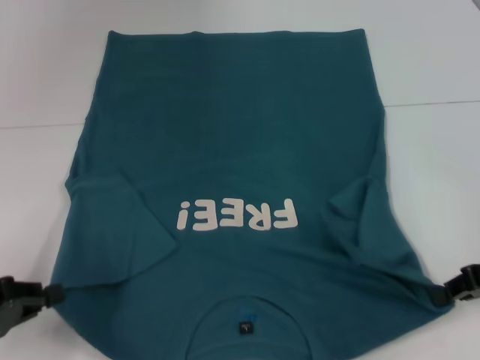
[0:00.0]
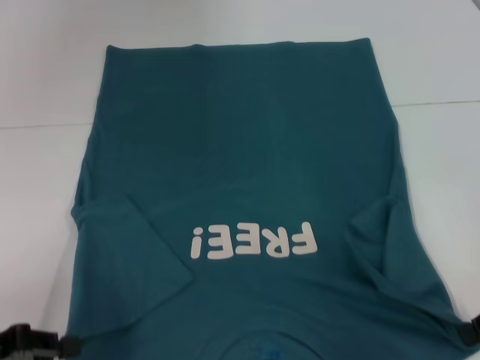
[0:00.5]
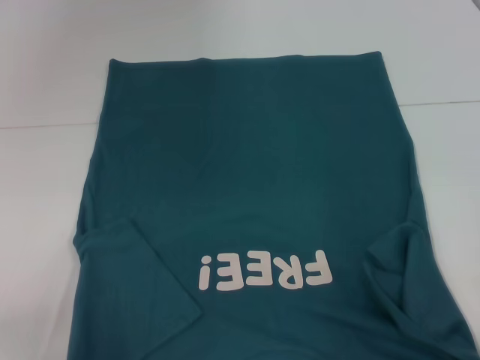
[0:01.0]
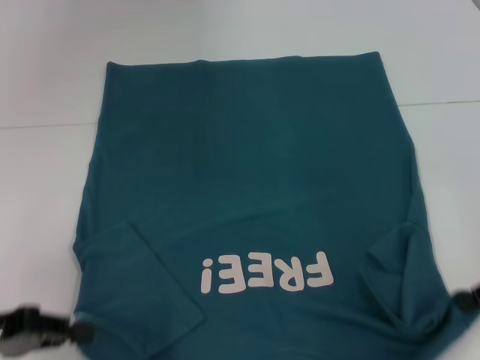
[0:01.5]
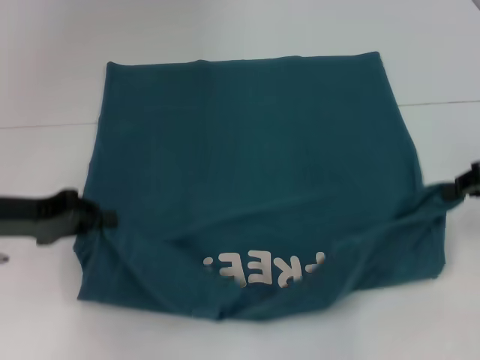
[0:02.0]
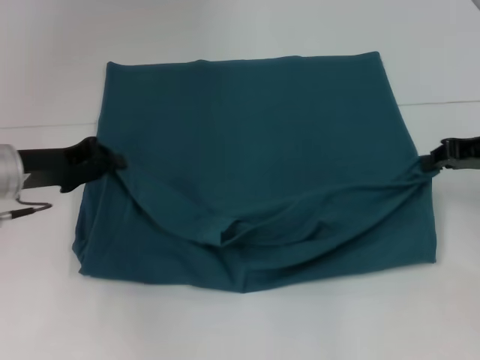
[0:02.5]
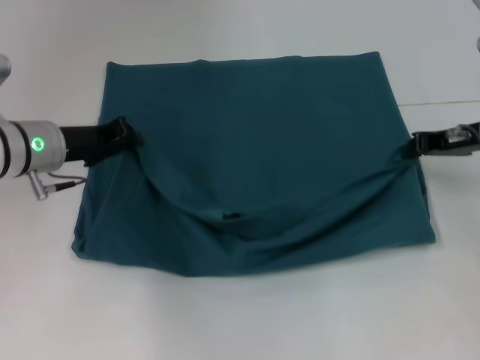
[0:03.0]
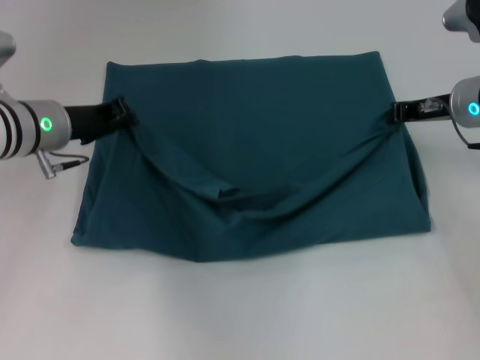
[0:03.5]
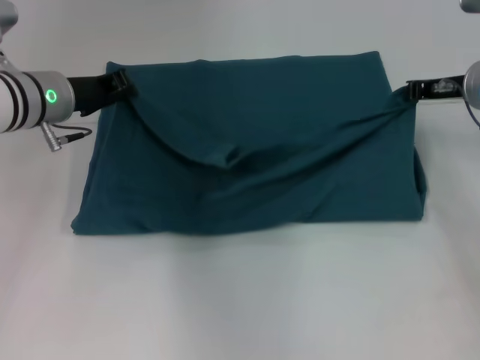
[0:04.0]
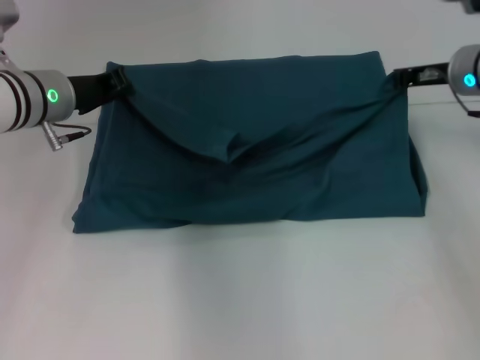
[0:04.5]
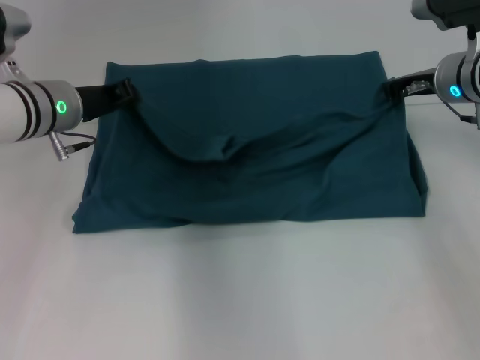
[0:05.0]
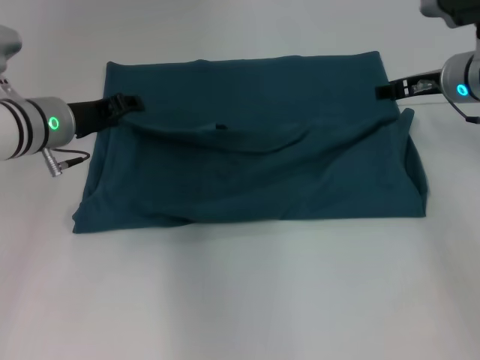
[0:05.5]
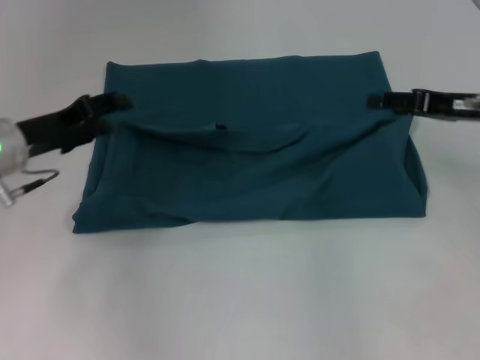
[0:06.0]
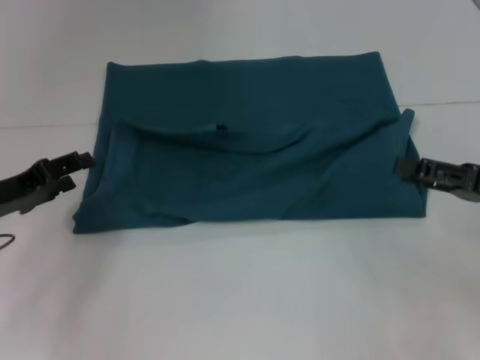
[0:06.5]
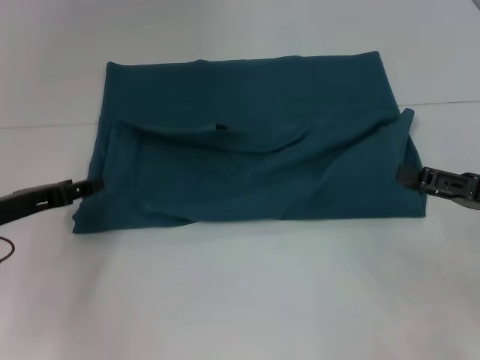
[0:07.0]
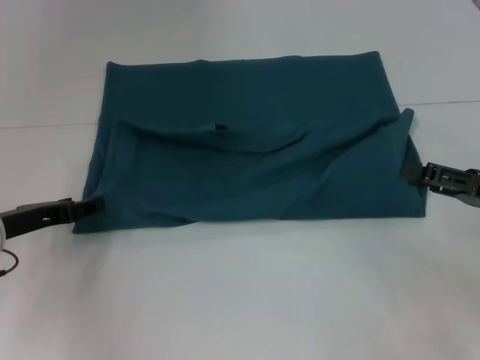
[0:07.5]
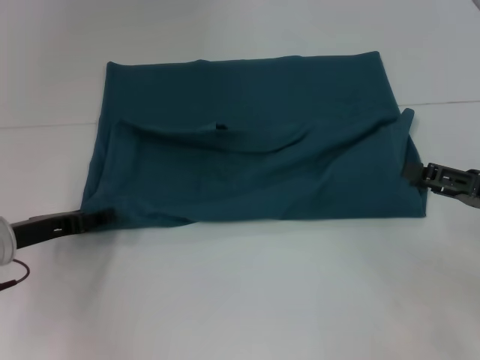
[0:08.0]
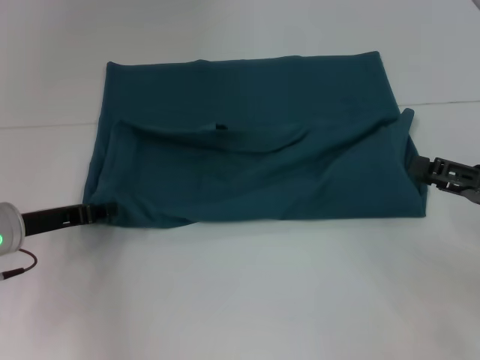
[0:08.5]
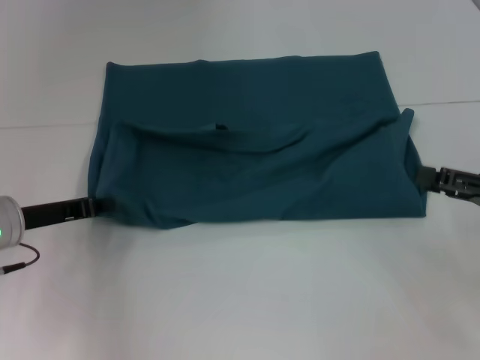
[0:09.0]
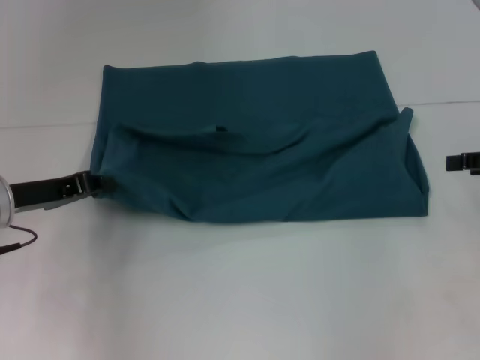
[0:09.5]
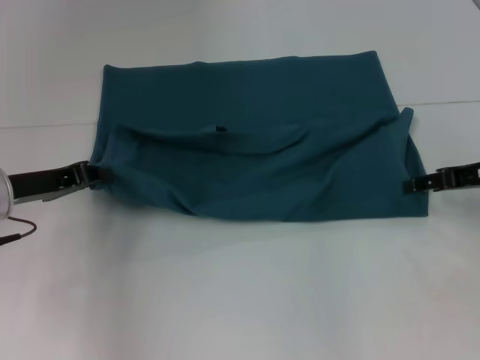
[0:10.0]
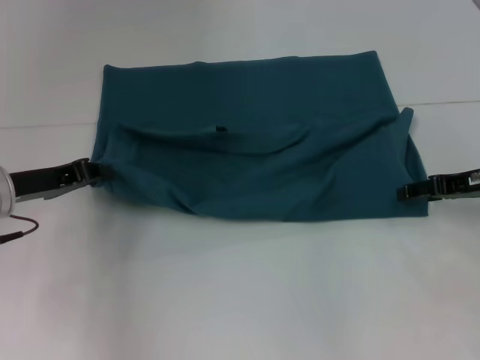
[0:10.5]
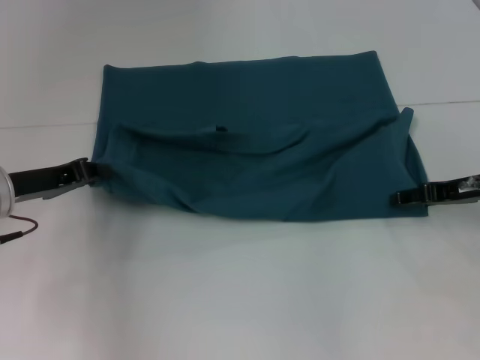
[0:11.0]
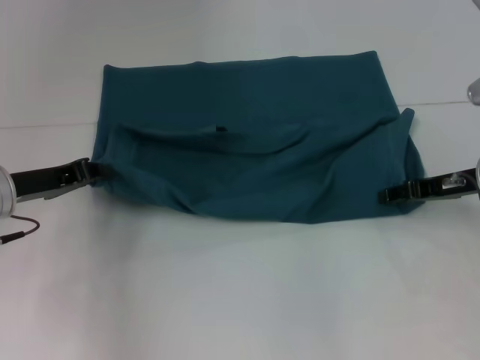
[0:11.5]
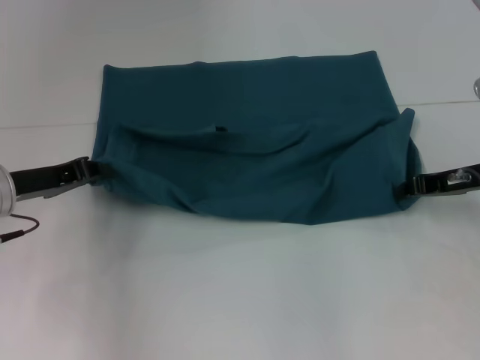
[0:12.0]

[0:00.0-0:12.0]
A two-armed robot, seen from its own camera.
Step, 0:00.5 to 0:05.5: Fold the clothes to the left.
Step, 0:00.5 to 0:05.5: Fold the clothes to the right.
0:00.0 to 0:02.0: The right gripper shifts roughly 5 cm upward; the left gripper is displaced forward, upward and to the right by about 15 cm.
0:02.0 to 0:04.0: The right gripper travels forward and to the left by approximately 10 cm. The left gripper moves forward and to the right, about 15 cm.
0:04.0 to 0:06.0: The two grippers go approximately 5 cm backward. The left gripper opens its fingers; the right gripper opens.
0:06.0 to 0:08.0: The right gripper moves backward and downward, about 10 cm; the left gripper heads downward and backward, covering approximately 10 cm.
0:08.0 to 0:10.0: The right gripper moves forward, approximately 10 cm. The left gripper ends up about 5 cm from where it was, and closes.
0:10.0 to 0:12.0: The right gripper closes up.

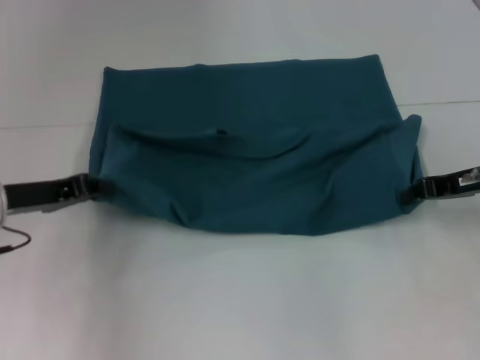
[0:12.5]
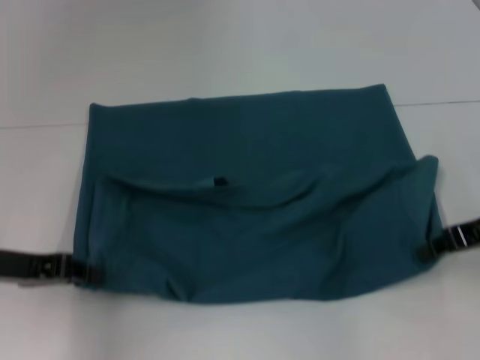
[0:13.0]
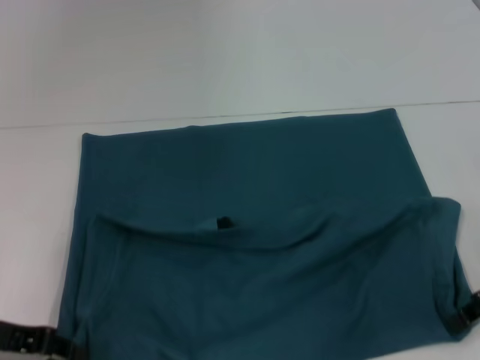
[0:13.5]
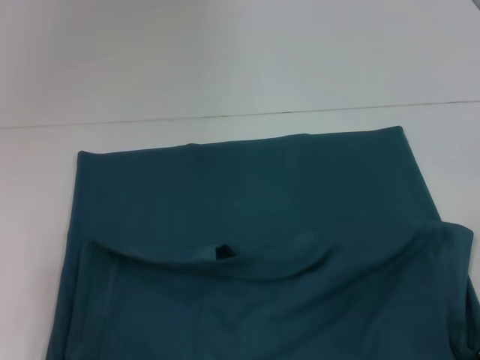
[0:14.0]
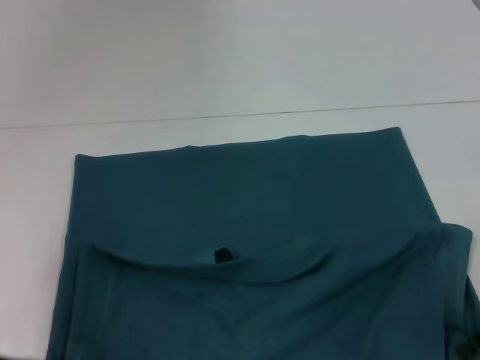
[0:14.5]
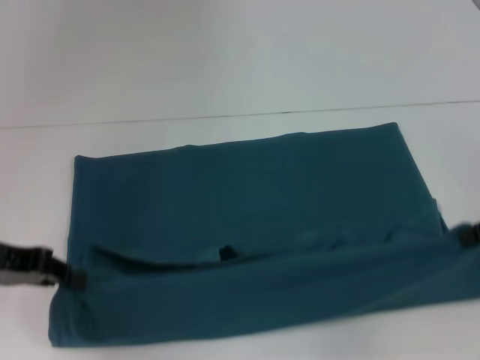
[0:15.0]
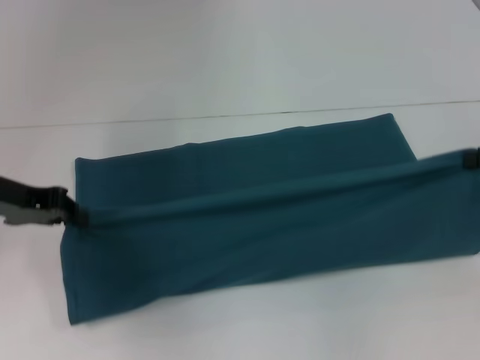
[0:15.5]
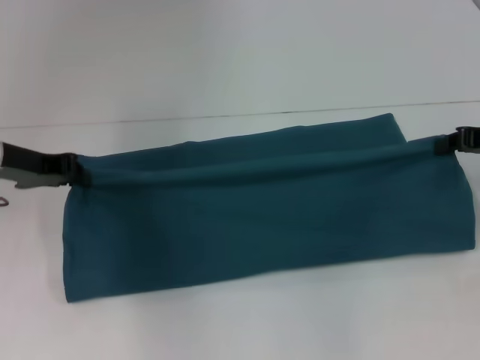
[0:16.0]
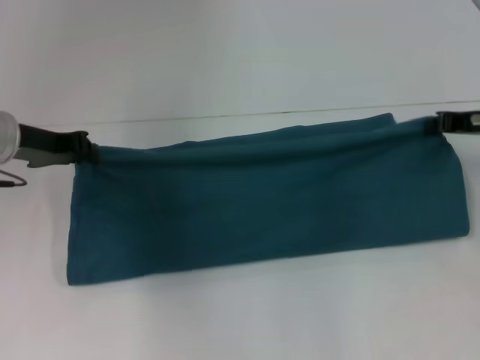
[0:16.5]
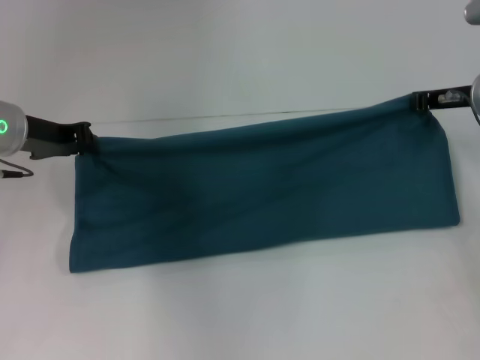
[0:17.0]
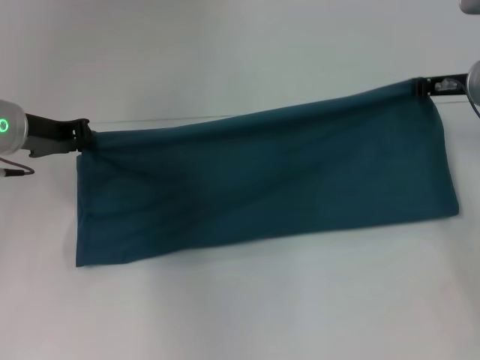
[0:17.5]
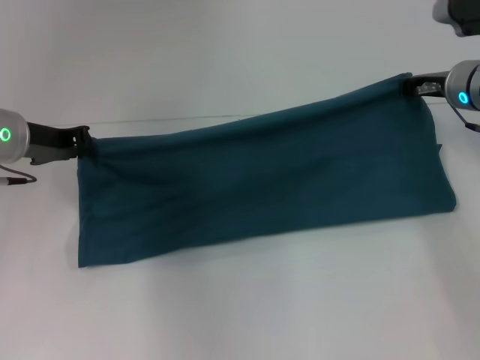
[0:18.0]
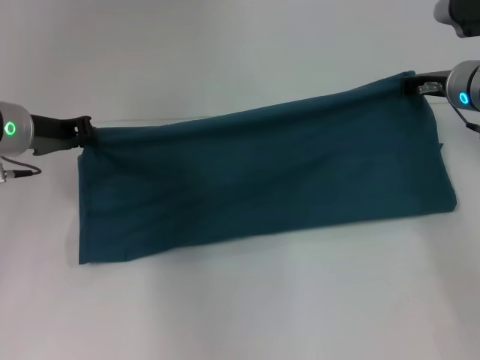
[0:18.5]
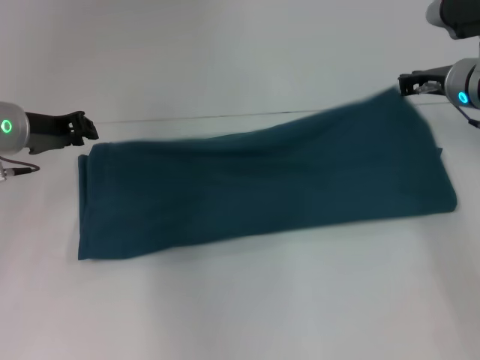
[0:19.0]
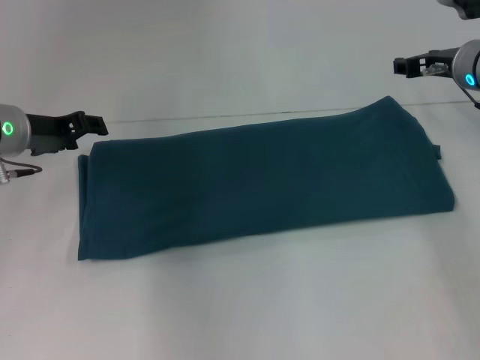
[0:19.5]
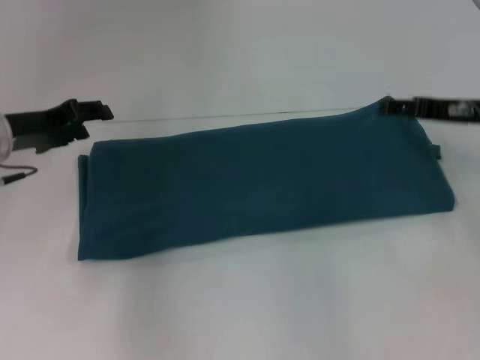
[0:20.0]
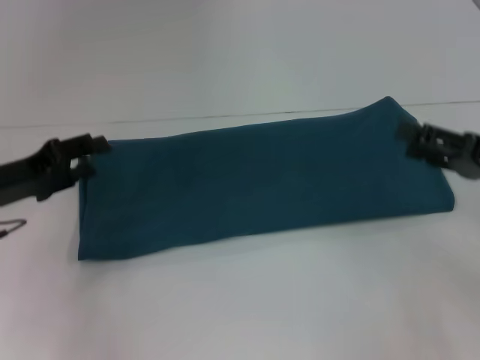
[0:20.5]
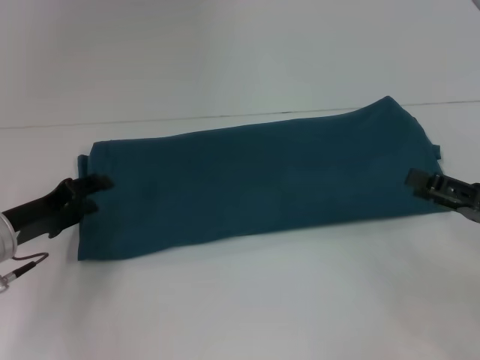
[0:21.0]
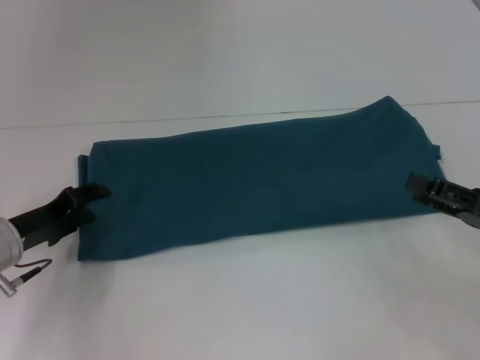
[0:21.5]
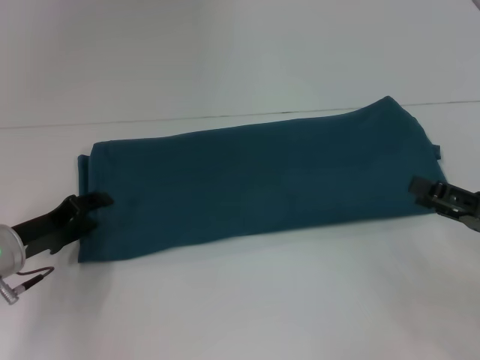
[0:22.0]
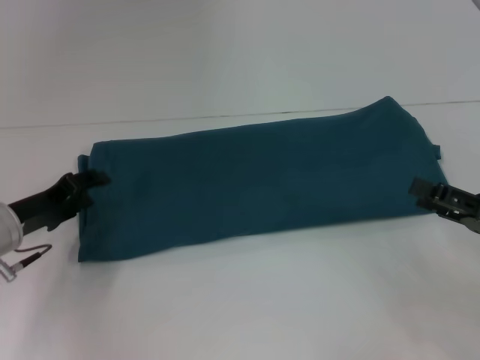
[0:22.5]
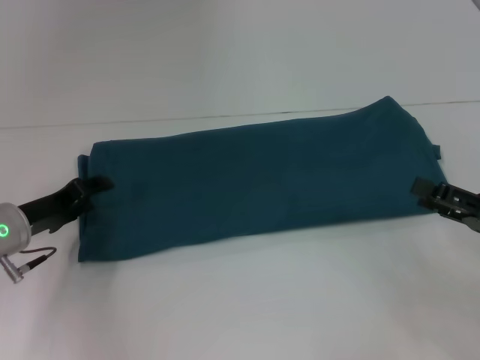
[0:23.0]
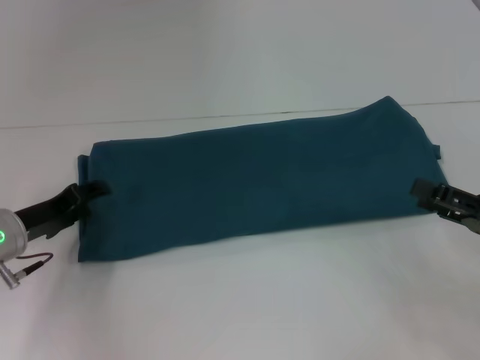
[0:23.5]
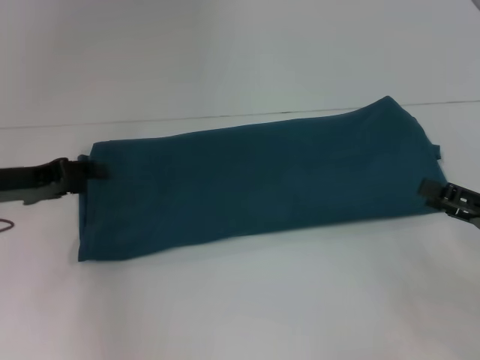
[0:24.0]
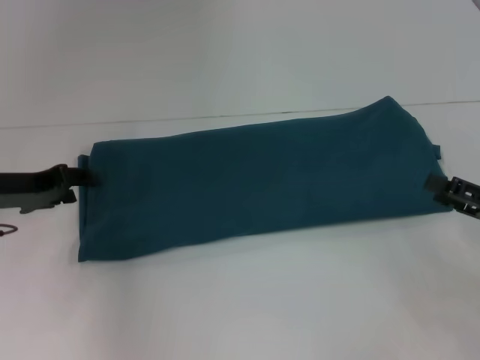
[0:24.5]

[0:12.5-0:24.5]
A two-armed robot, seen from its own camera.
Step, 0:14.5 to 0:19.0: Fold the clothes to the right.
0:12.5 to 0:14.5: Both grippers move backward, about 10 cm.
0:14.5 to 0:16.5: Both grippers move forward, approximately 15 cm.
0:16.5 to 0:18.5: The right gripper travels to the left and forward by roughly 10 cm.
0:18.5 to 0:20.5: The left gripper heads backward, covering roughly 10 cm, and opens its fingers. The right gripper heads backward and to the right, covering approximately 15 cm, and opens up.
0:20.5 to 0:22.5: The left gripper shifts about 5 cm downward; the right gripper shifts by approximately 5 cm.
0:22.5 to 0:24.5: The left gripper moves upward, roughly 5 cm.

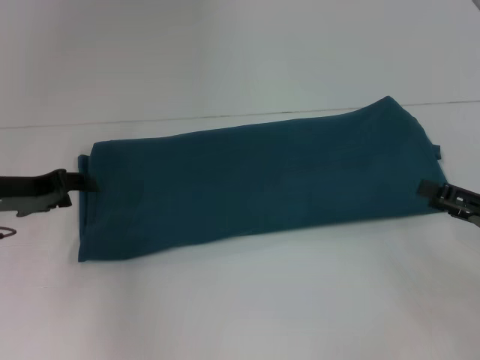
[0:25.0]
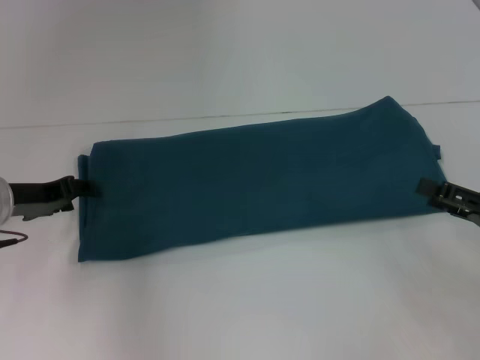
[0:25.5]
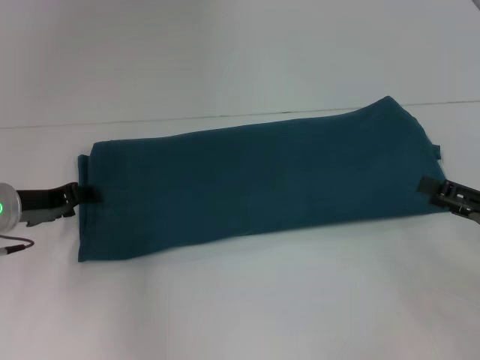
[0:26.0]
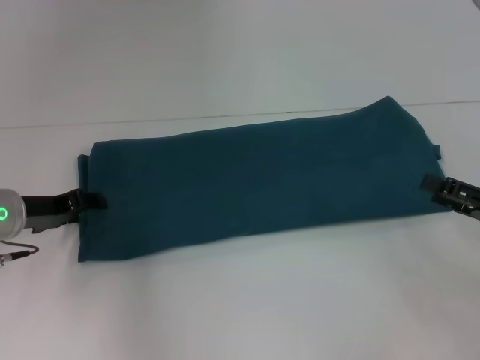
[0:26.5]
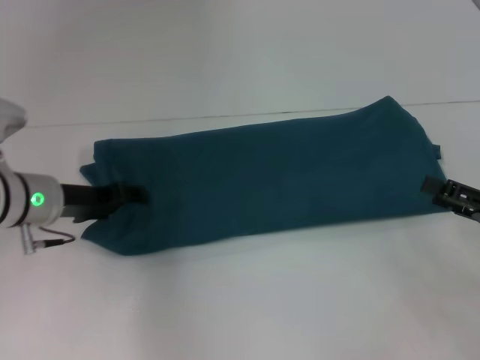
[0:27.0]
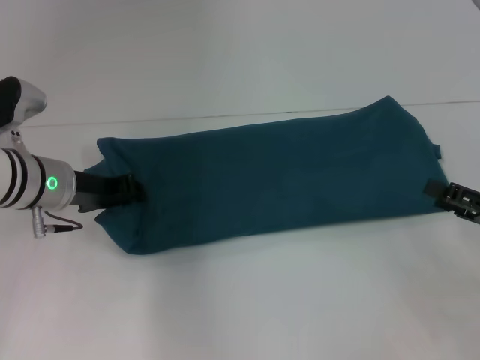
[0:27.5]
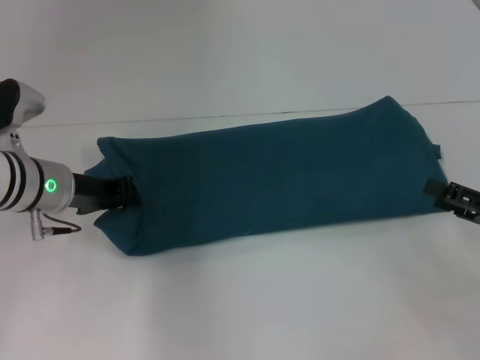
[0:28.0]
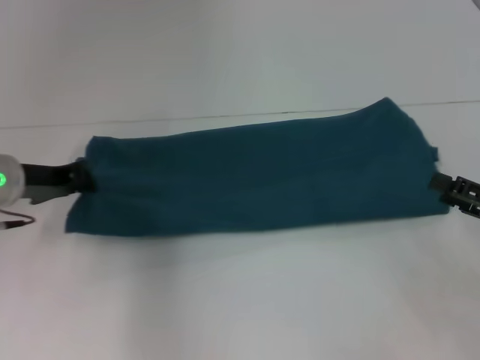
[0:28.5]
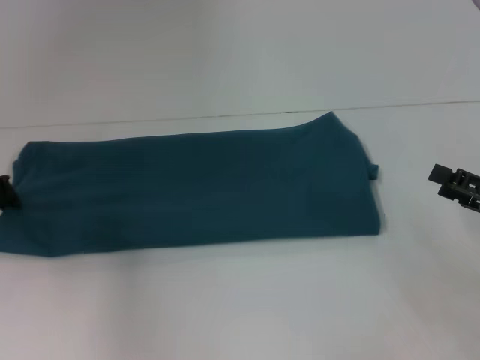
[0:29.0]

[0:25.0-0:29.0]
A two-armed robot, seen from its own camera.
0:25.0 to 0:27.0: The left gripper shifts about 5 cm to the right.
0:27.0 to 0:29.0: The left gripper travels to the left by some 10 cm, and closes.
